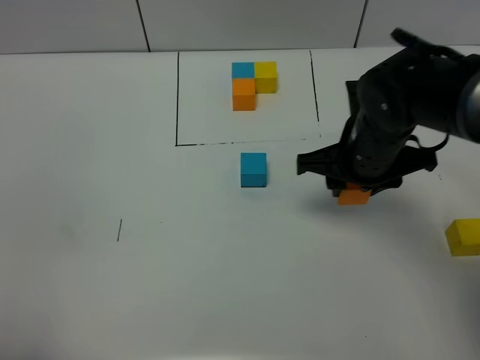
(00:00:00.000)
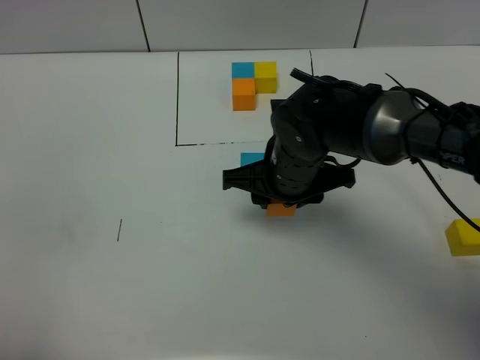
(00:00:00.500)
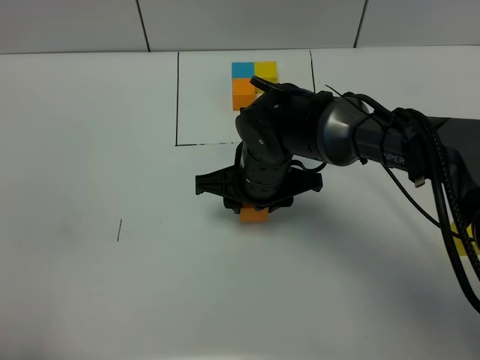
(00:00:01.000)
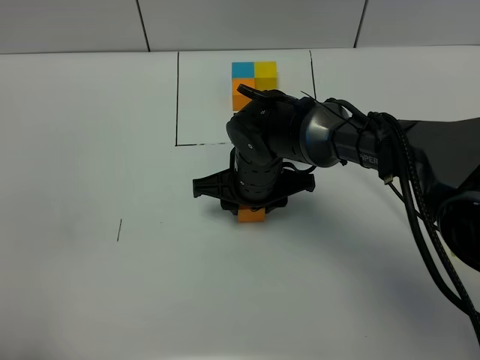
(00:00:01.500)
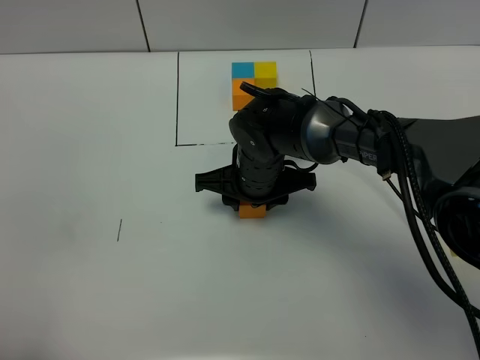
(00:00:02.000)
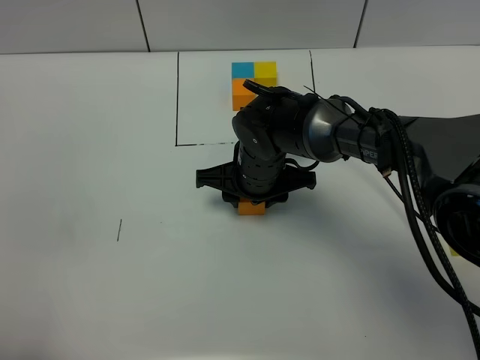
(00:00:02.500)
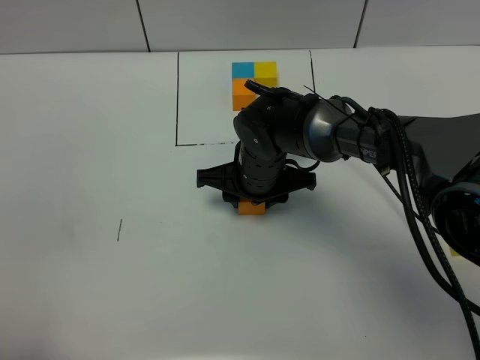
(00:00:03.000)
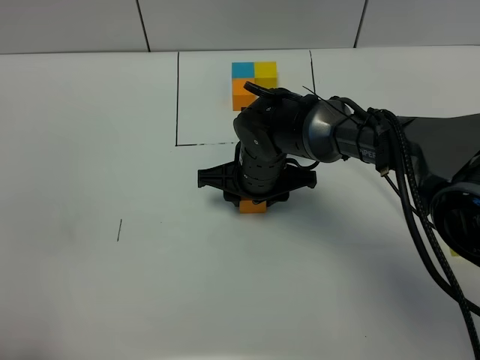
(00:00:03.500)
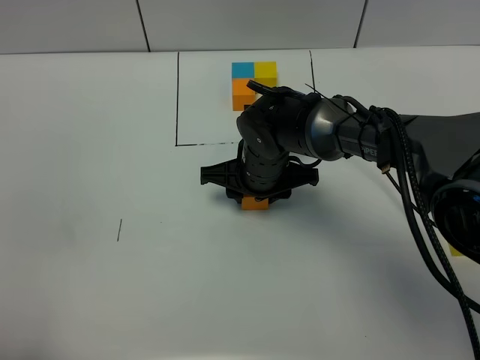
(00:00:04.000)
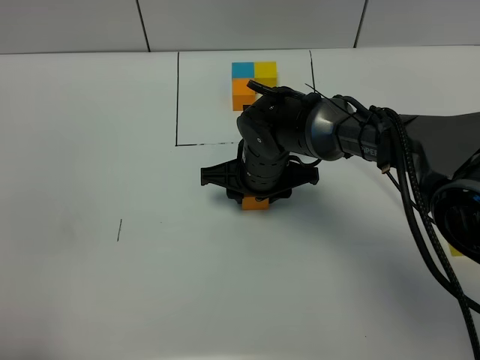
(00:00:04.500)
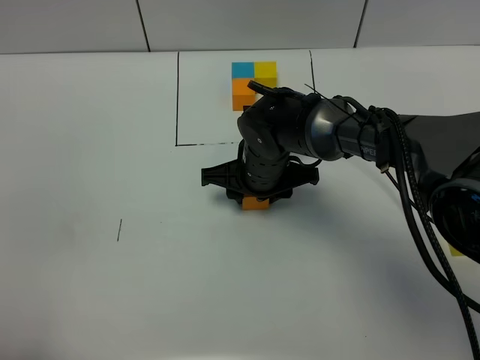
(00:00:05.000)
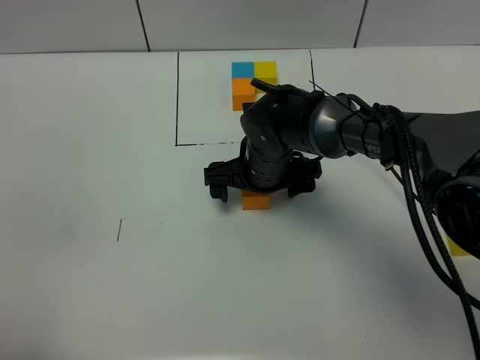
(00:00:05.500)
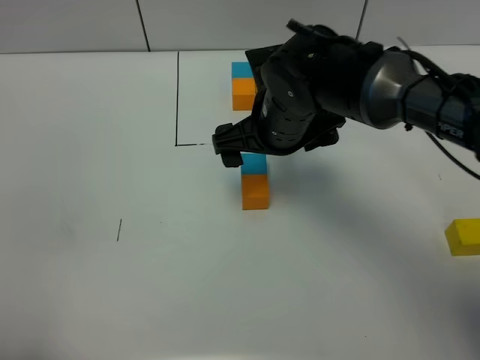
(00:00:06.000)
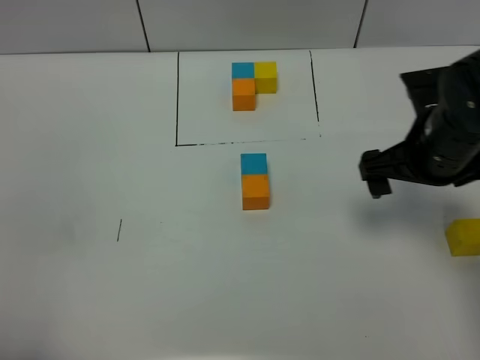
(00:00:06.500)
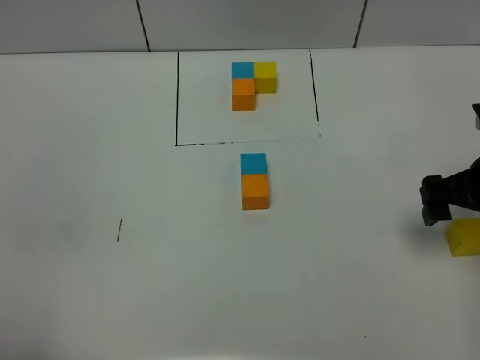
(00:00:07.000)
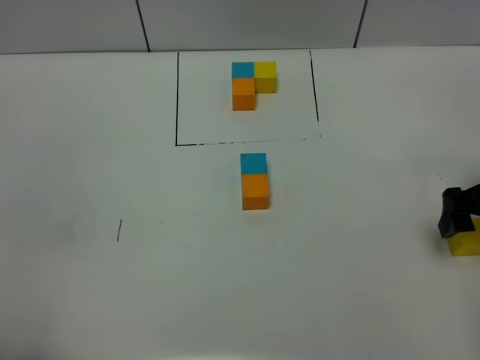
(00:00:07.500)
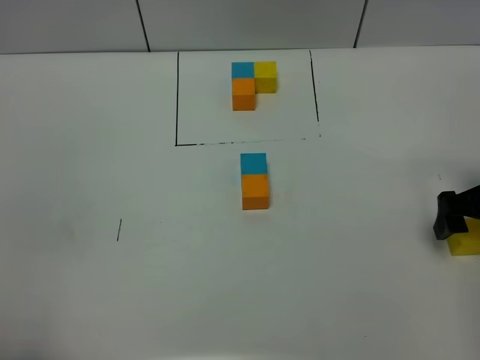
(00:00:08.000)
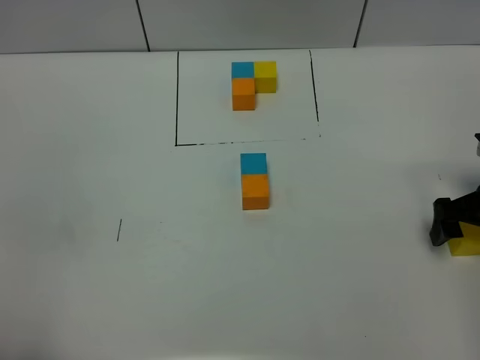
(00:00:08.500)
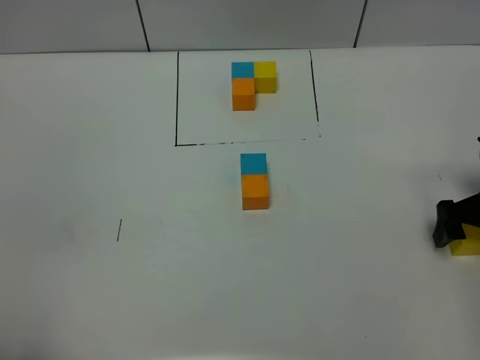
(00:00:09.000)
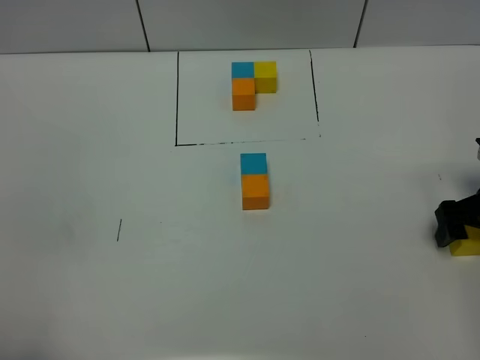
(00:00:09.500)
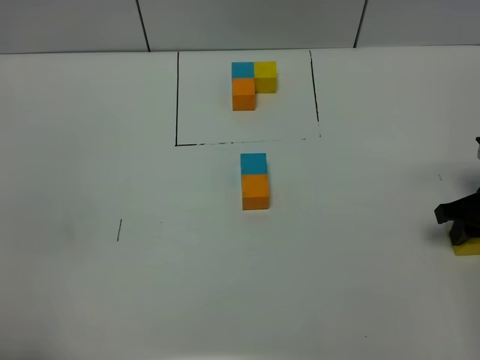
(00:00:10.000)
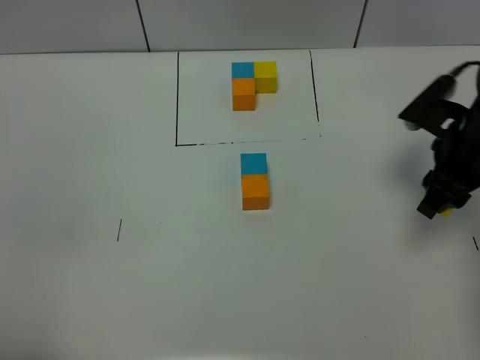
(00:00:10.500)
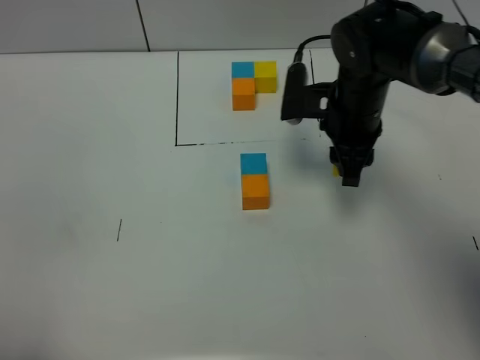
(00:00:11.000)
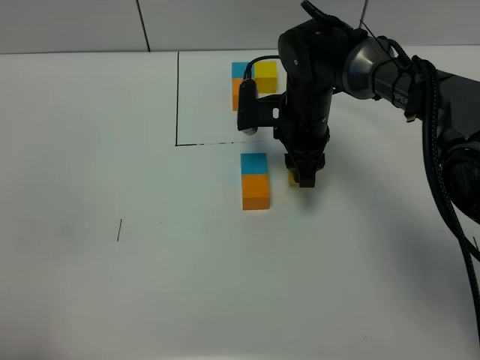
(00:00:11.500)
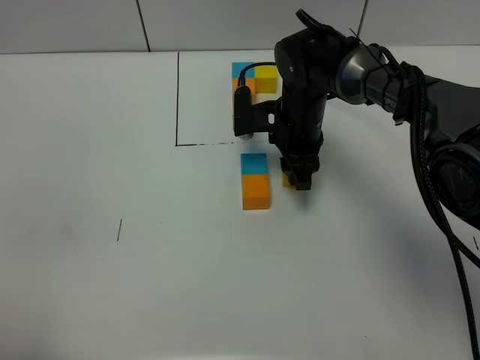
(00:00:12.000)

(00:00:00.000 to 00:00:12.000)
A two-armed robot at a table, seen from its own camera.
Task of the whole recording: According to the building block template in front, assemble the scattered blocks together.
Step, 00:00:00.000 - 00:00:05.000: Put the orange build block on the behind of the blue build block.
00:00:00.000 - 00:00:02.000: The right gripper goes roughly 15 cm to the left and downward.
00:00:02.000 - 00:00:04.000: There are only small adjustments of the grippers.
00:00:04.000 - 00:00:06.000: The right gripper is displaced upward by approximately 10 cm, and opens its fingers.
00:00:06.000 - 00:00:08.000: The right gripper moves to the right, approximately 25 cm.
00:00:08.000 - 00:00:10.000: The right gripper closes up.
00:00:10.000 - 00:00:12.000: The right gripper goes approximately 30 cm to the left and forward.

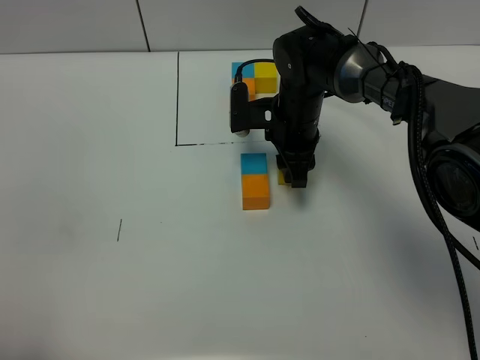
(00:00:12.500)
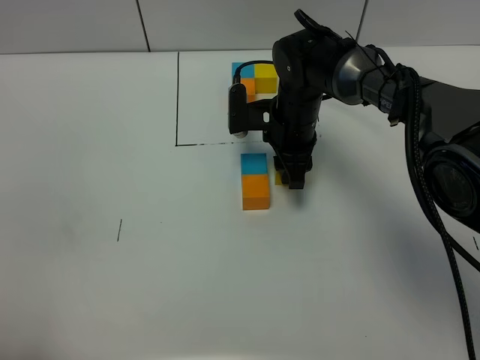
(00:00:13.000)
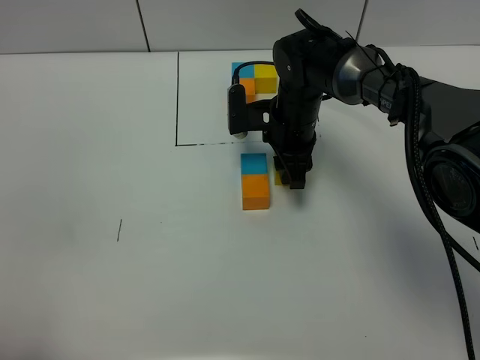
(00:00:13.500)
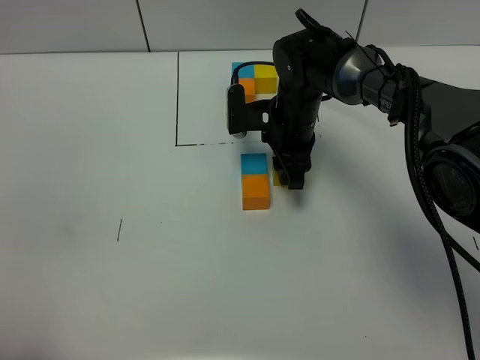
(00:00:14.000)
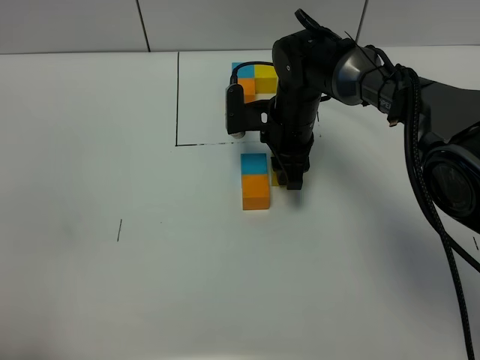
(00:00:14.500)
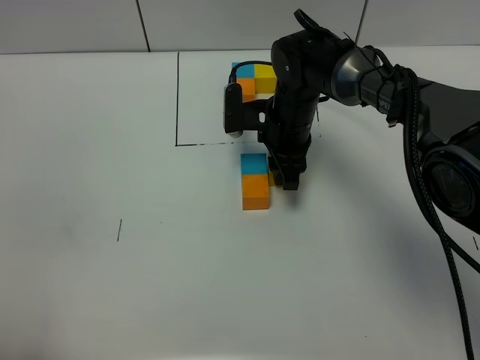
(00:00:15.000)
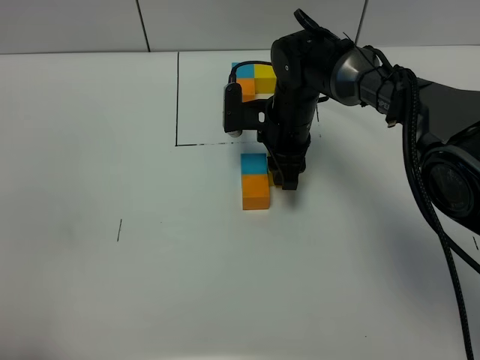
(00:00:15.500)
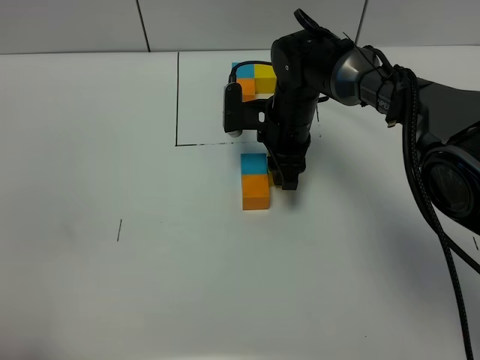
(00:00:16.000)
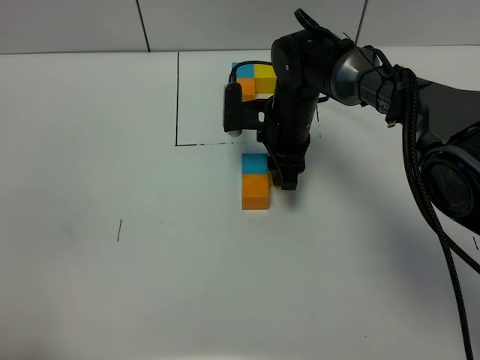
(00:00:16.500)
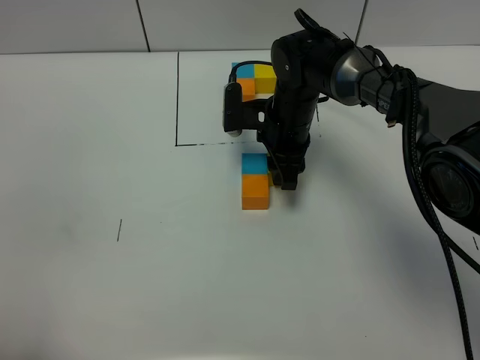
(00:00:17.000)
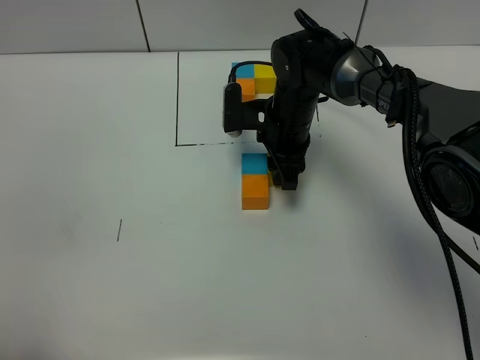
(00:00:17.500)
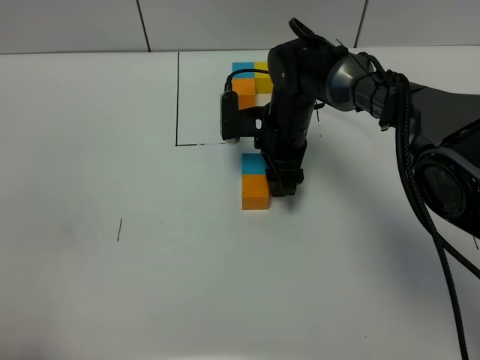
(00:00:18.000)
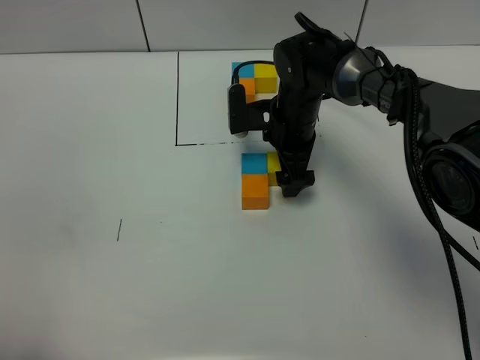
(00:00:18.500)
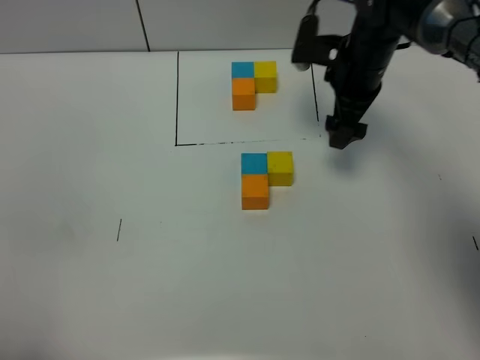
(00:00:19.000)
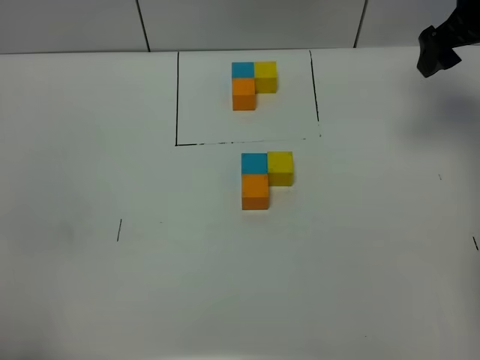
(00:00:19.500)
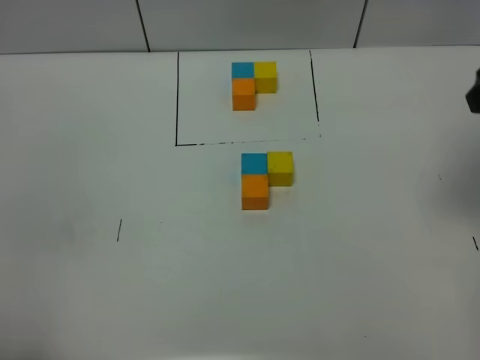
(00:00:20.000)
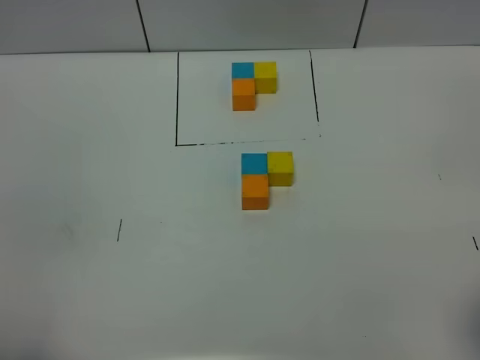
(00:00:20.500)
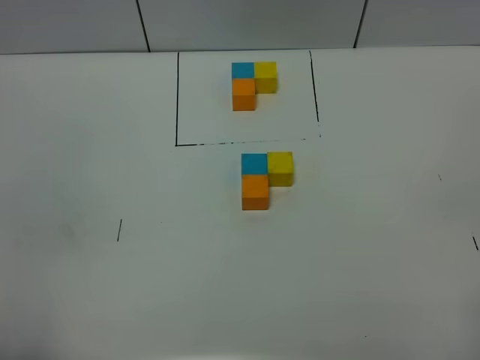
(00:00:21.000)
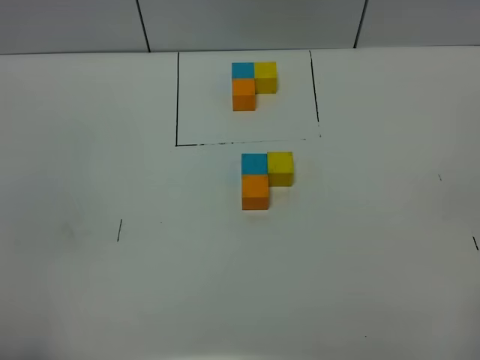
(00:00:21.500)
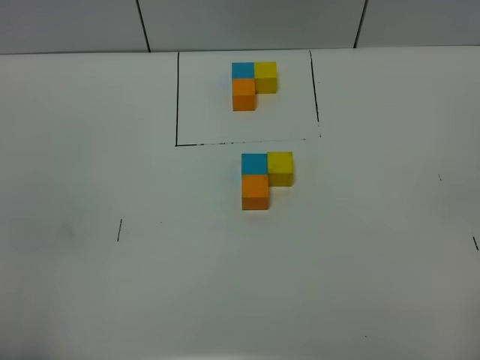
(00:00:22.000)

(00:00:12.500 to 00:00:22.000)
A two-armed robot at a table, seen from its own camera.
Task of the whole recording: According to the building block template in front, assemble the scattered blocks together.
Step, 00:00:12.500 - 00:00:18.500: Put the yellow build block on the right of the blue build block.
00:00:12.500 - 00:00:16.500: The two grippers keep their place.
00:00:16.500 - 00:00:18.000: The right gripper opens.
00:00:18.000 - 00:00:20.000: The right gripper is displaced to the right, upward and backward by approximately 35 cm, and opens.
